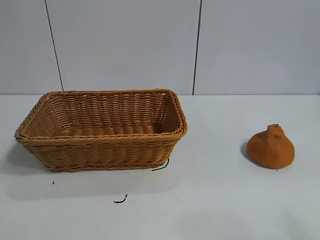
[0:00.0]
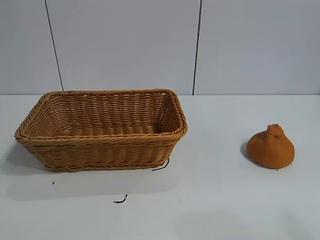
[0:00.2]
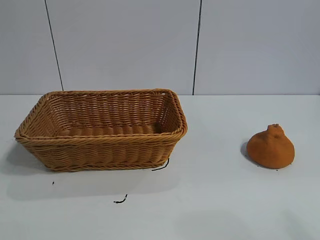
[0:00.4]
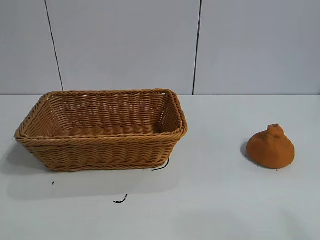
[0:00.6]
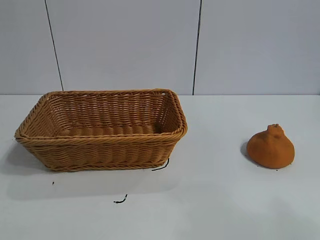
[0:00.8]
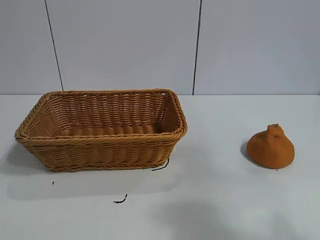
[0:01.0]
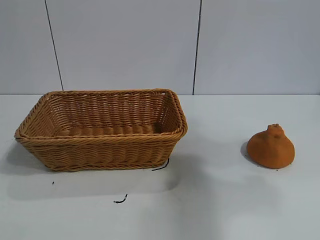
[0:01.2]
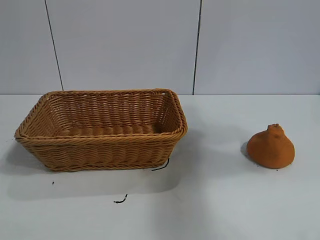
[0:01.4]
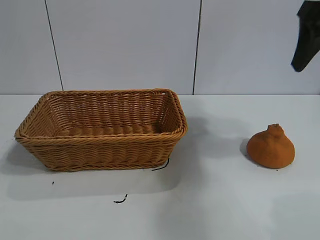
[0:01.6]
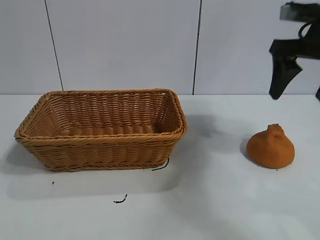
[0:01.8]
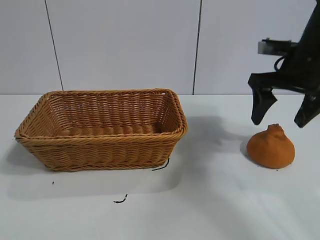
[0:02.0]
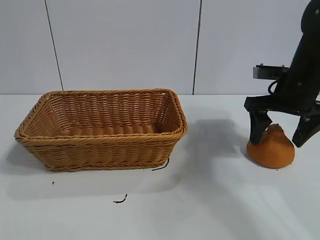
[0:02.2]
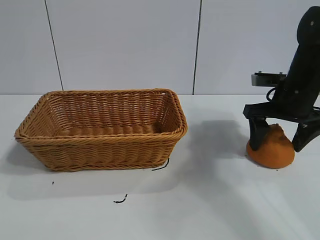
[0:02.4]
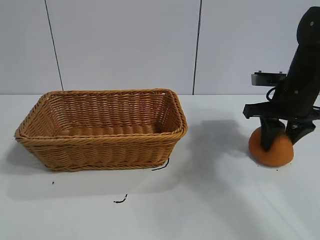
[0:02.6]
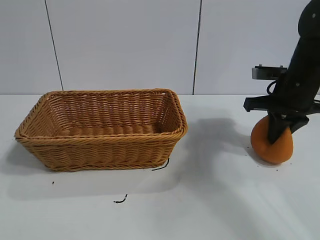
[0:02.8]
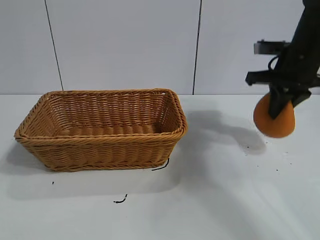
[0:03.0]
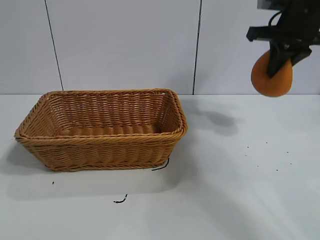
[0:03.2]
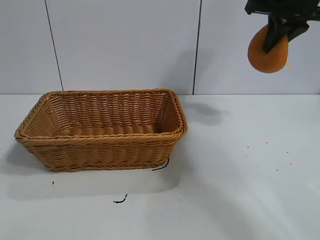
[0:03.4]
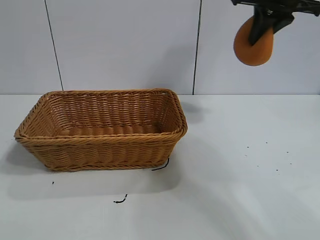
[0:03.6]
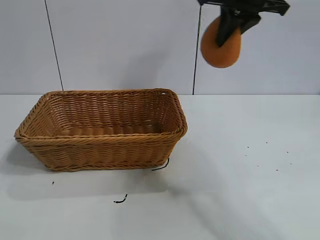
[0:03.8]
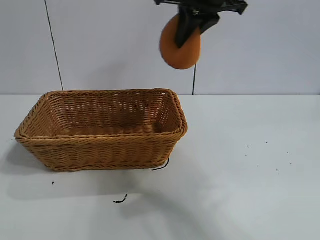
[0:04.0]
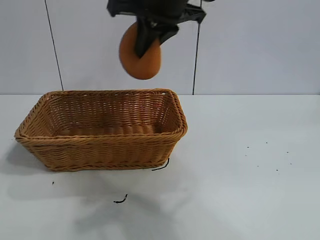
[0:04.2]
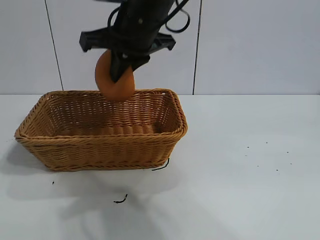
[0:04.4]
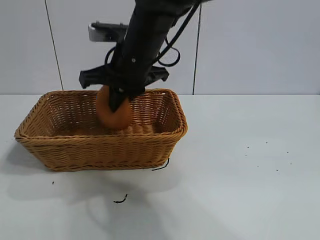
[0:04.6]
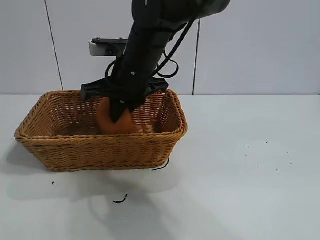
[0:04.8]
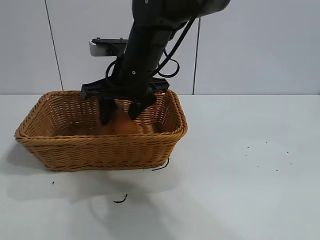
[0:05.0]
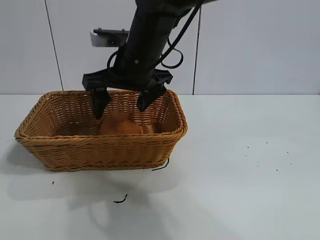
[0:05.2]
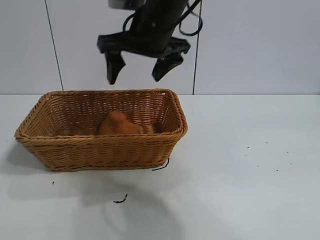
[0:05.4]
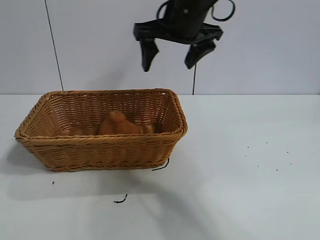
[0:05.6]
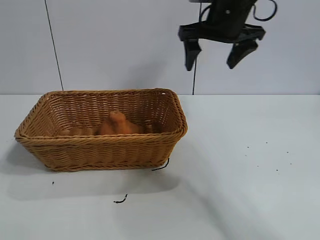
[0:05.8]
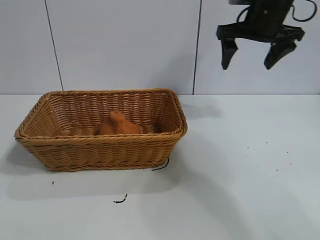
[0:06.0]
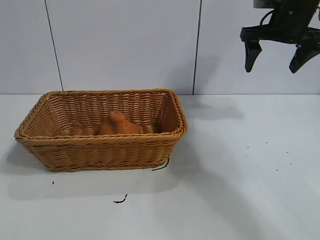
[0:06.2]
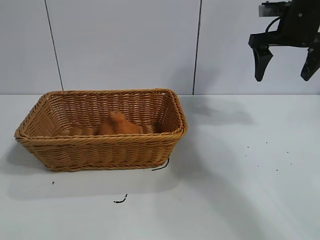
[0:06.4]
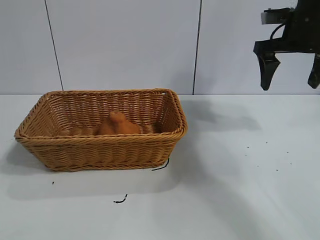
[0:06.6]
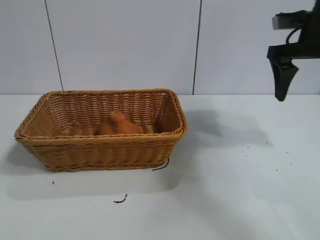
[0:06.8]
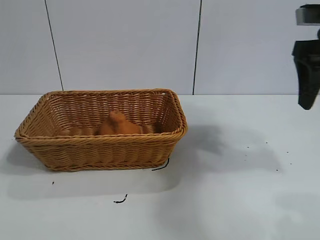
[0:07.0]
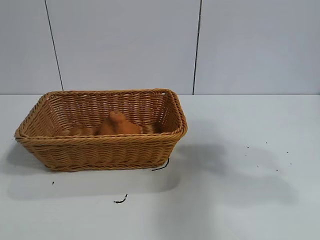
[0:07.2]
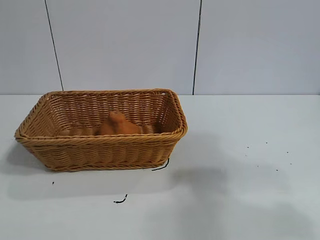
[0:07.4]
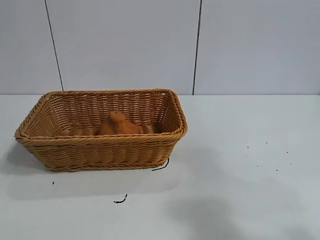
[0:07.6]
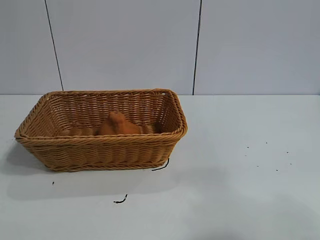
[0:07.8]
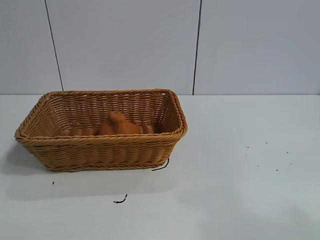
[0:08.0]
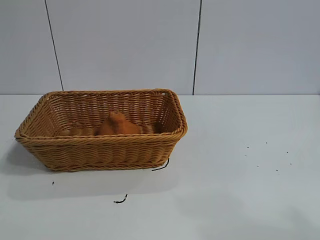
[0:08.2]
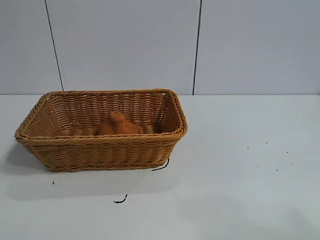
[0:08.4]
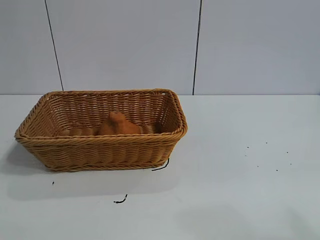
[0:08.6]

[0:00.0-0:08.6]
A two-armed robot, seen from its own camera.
Task of the whole recording: pick up the orange and put it into the basket.
Step, 0:00.6 to 0:02.8: Grasp the orange with right gripper.
Step, 0:03.0 to 0:05.0: Place the orange in the basket with right gripper.
